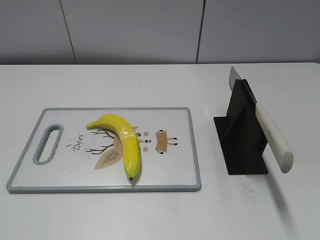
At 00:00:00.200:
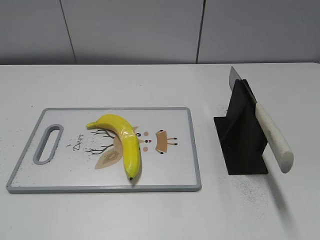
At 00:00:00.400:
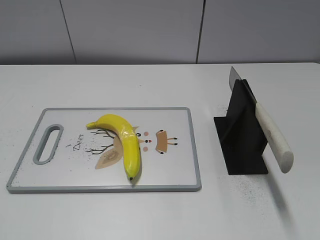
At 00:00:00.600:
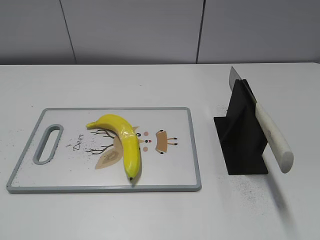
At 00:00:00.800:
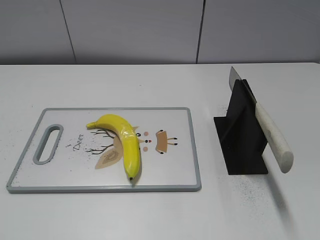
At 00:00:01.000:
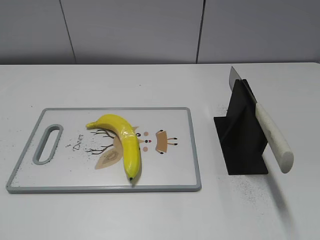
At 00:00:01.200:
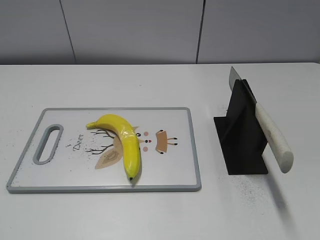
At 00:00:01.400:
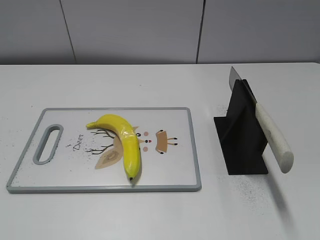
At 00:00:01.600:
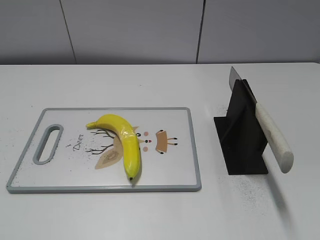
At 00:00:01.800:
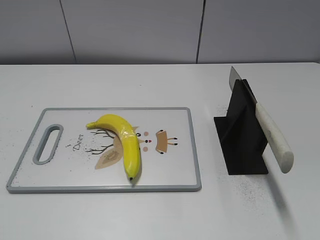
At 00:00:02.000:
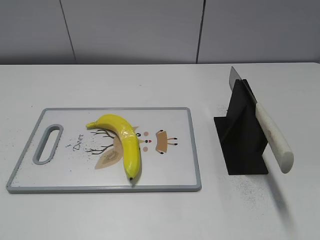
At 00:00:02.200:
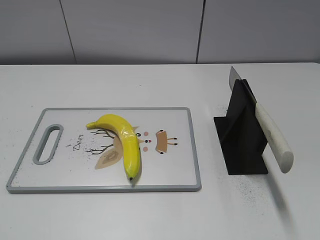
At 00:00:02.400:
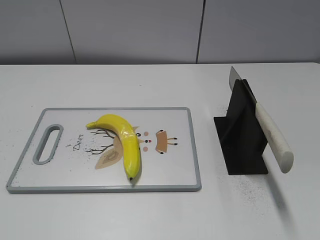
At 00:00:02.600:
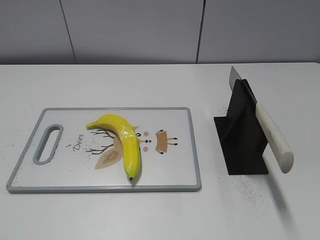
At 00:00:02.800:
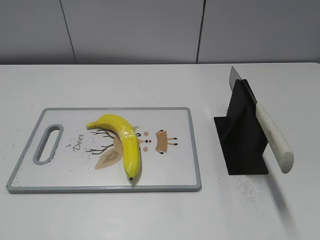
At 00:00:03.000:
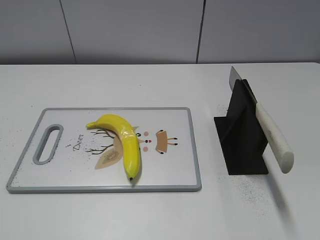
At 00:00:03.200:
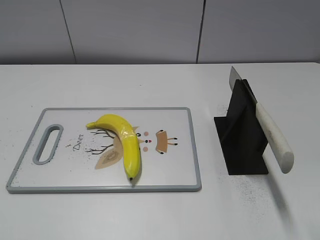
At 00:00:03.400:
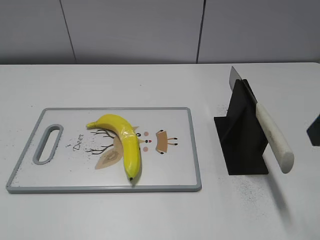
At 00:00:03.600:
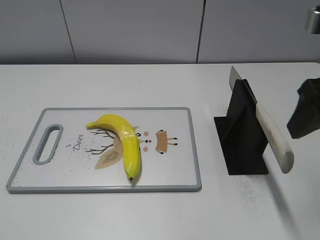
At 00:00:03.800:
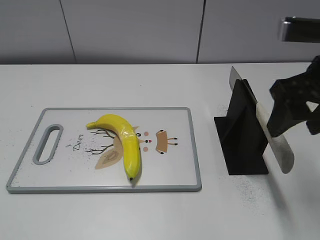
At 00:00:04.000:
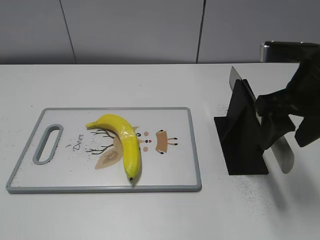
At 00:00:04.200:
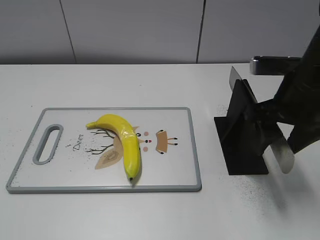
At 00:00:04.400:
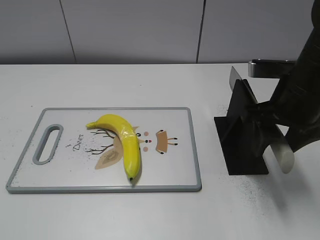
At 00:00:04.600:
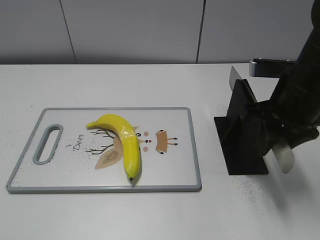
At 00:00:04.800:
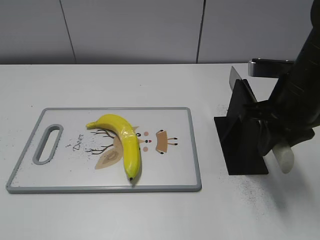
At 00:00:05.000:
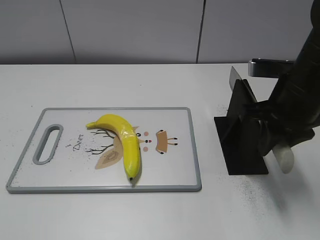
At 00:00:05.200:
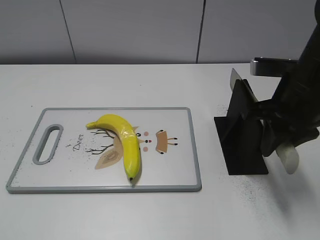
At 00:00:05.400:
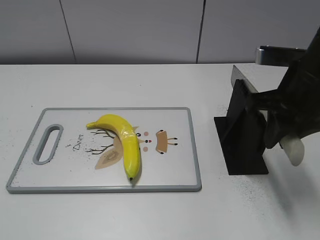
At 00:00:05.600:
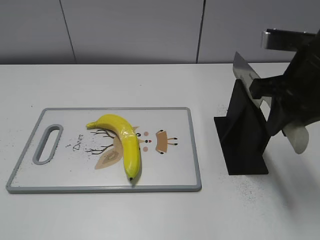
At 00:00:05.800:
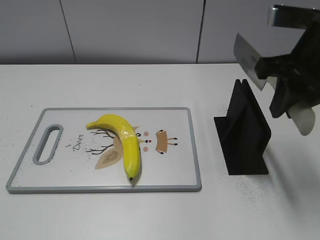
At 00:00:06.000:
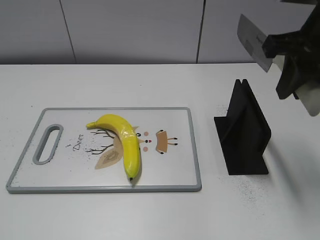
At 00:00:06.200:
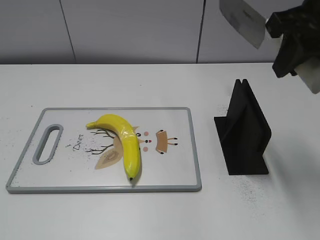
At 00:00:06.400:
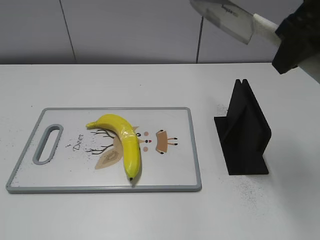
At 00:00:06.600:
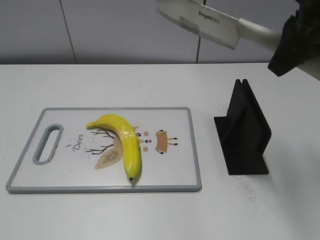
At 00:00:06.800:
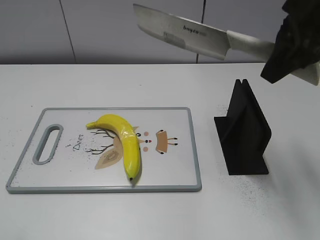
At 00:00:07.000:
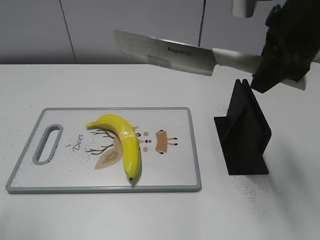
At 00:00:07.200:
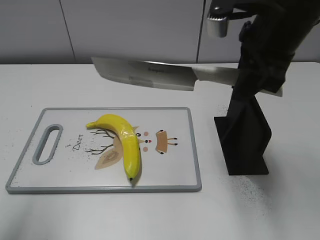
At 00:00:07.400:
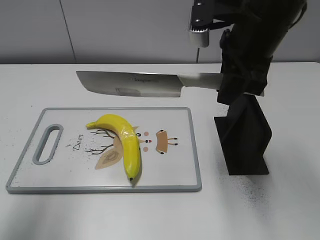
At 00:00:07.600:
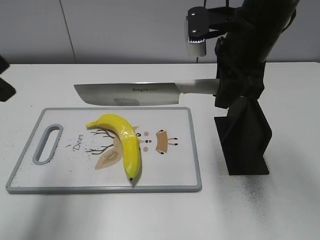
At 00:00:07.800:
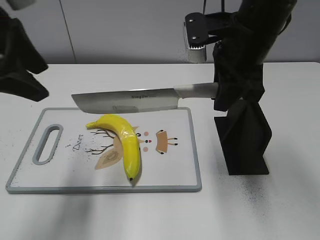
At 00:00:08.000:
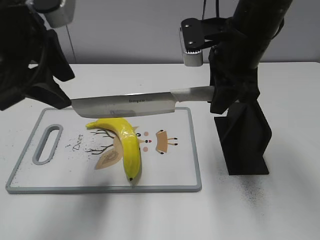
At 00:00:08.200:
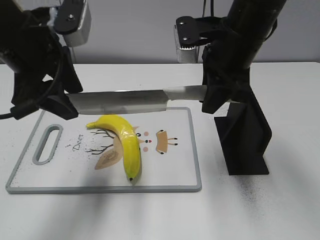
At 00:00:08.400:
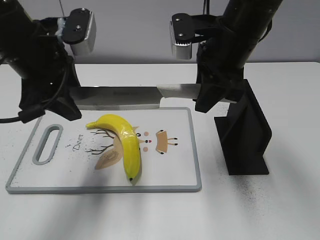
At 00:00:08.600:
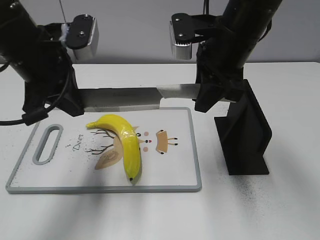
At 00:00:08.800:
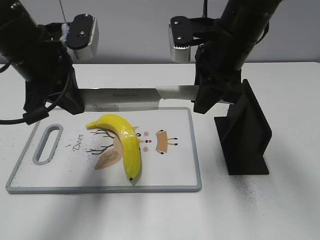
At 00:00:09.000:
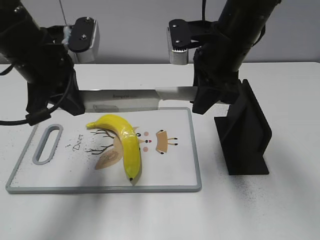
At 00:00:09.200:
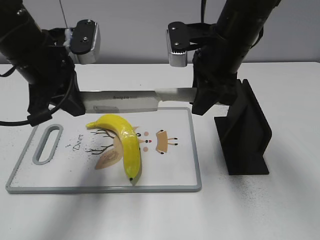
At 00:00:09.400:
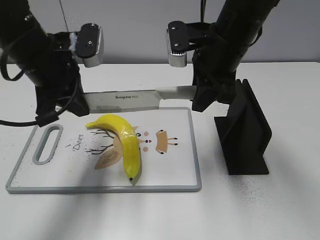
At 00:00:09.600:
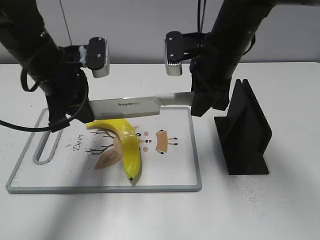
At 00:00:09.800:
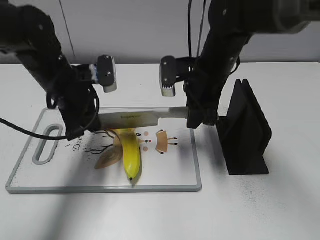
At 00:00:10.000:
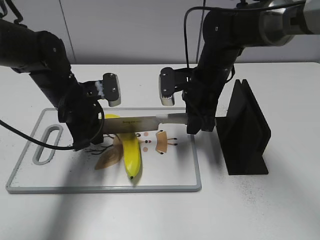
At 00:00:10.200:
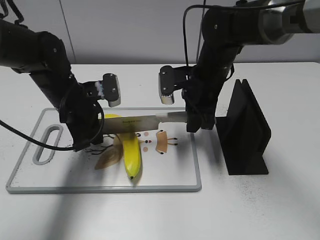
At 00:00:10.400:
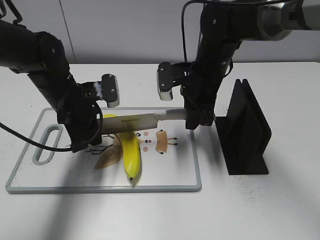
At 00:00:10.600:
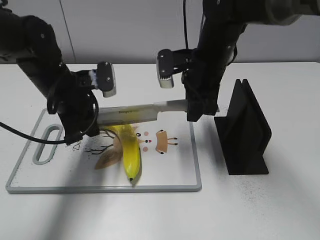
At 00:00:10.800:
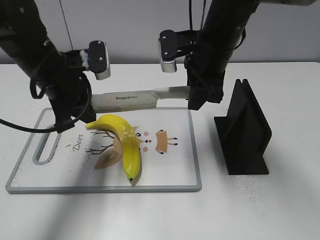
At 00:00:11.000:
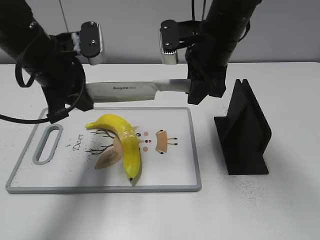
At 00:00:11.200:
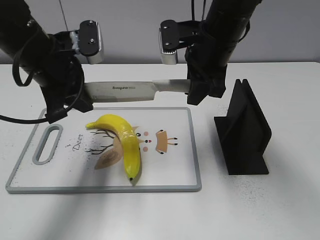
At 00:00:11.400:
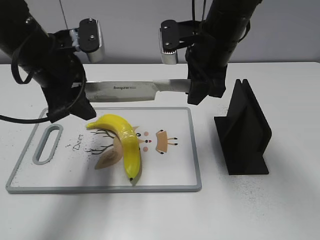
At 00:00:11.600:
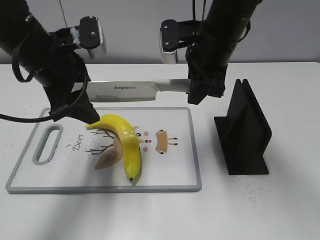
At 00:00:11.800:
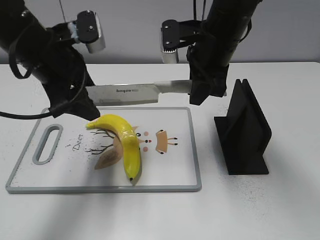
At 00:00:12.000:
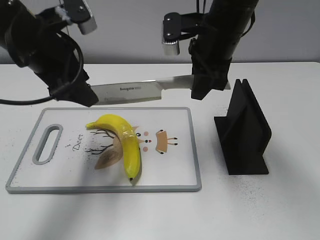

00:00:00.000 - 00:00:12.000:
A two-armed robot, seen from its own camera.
Task of the whole recording: cut plastic banana.
Step, 00:00:00.000 - 00:00:05.600: Grab the knife handle with your right hand.
Step, 00:00:06.000 - 00:00:10.800: Lift the knife with your right hand.
00:00:03.000 - 00:00:04.400: The right gripper heads forward, downward and to the left, covering some 20 cm.
00:00:04.400 - 00:00:06.000: The right gripper travels upward by roughly 10 cm, and closes up.
00:00:06.000 - 00:00:07.600: The right gripper is displaced to the left by roughly 5 cm. Meanwhile the left gripper is displaced forward by approximately 25 cm.
00:00:07.600 - 00:00:09.000: The left gripper goes roughly 15 cm downward, to the right and forward, and closes its fingers.
00:00:09.000 - 00:00:10.400: Both grippers move downward, roughly 10 cm.
00:00:10.400 - 00:00:12.000: The grippers both shift upward by some 10 cm. The left gripper opens its fingers.

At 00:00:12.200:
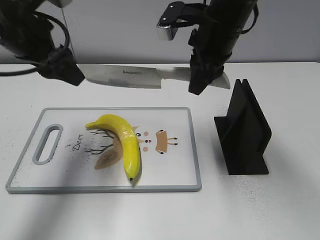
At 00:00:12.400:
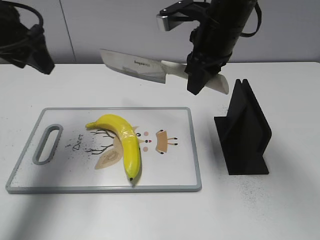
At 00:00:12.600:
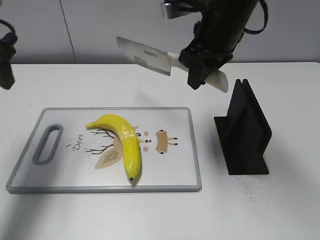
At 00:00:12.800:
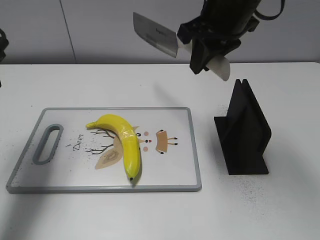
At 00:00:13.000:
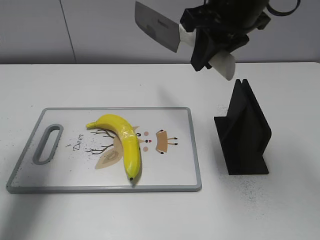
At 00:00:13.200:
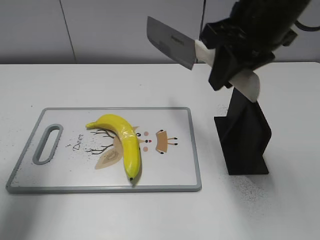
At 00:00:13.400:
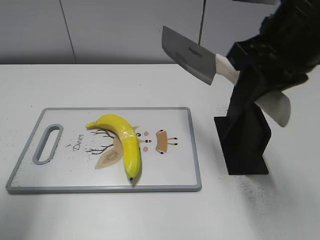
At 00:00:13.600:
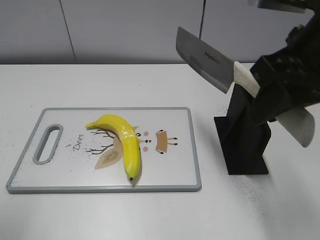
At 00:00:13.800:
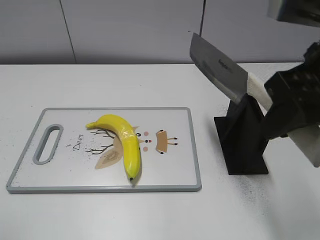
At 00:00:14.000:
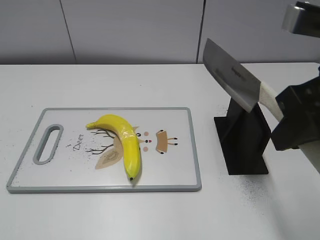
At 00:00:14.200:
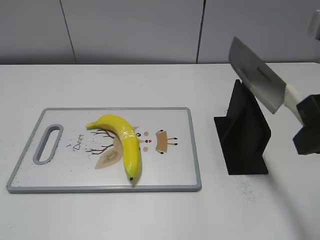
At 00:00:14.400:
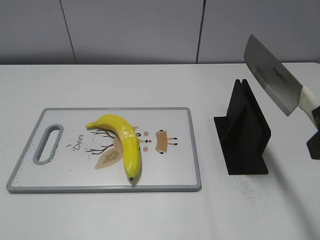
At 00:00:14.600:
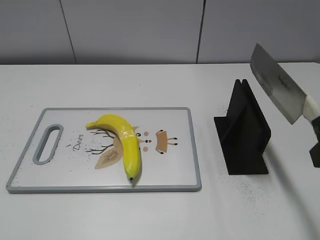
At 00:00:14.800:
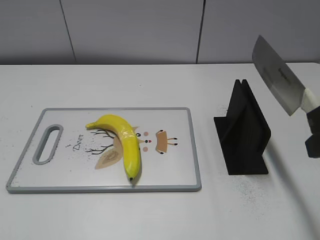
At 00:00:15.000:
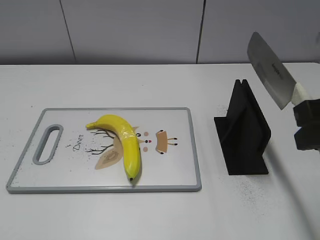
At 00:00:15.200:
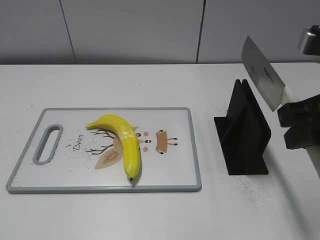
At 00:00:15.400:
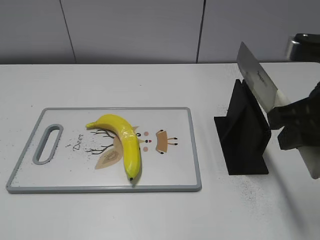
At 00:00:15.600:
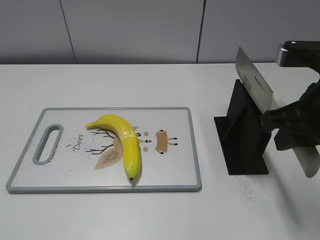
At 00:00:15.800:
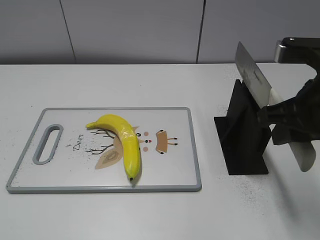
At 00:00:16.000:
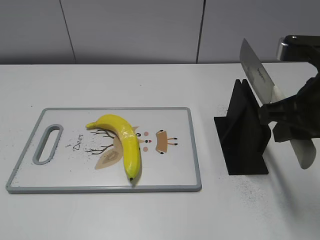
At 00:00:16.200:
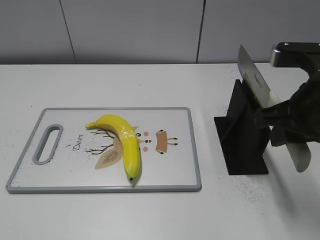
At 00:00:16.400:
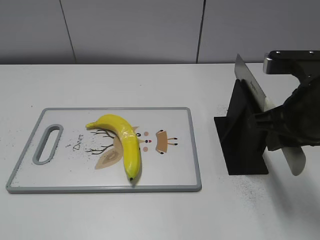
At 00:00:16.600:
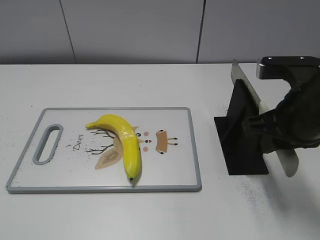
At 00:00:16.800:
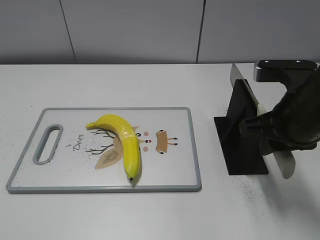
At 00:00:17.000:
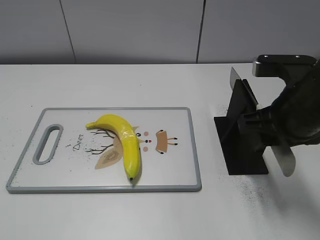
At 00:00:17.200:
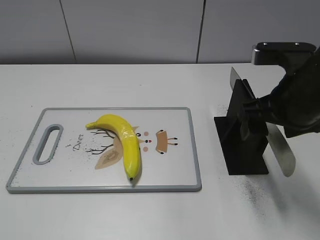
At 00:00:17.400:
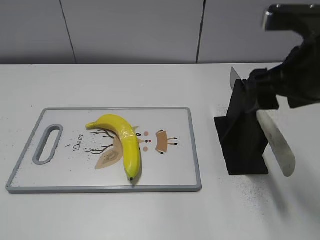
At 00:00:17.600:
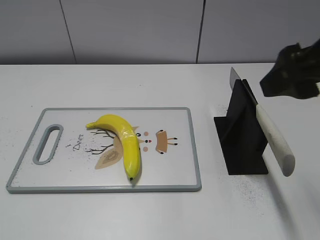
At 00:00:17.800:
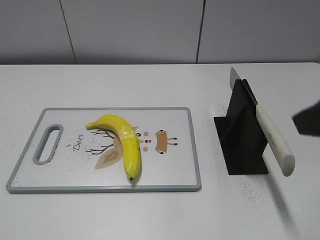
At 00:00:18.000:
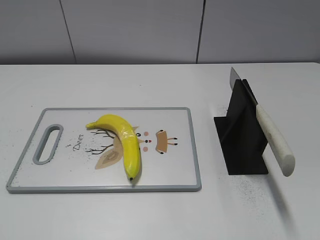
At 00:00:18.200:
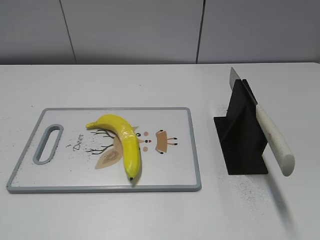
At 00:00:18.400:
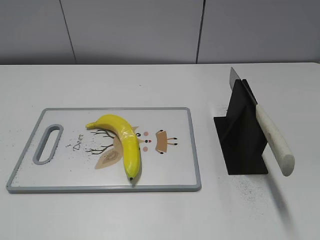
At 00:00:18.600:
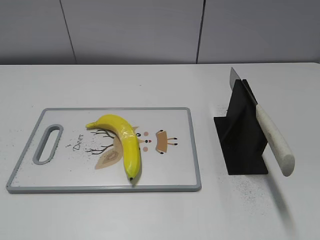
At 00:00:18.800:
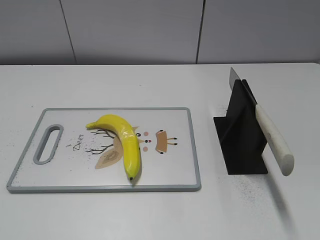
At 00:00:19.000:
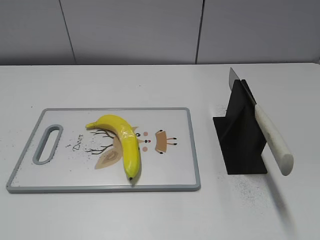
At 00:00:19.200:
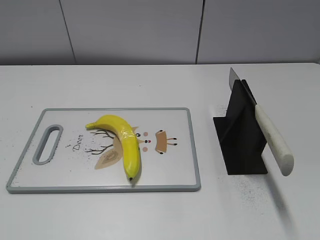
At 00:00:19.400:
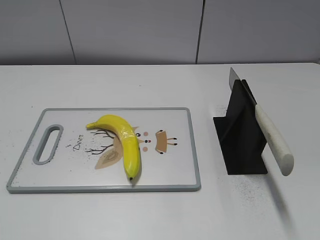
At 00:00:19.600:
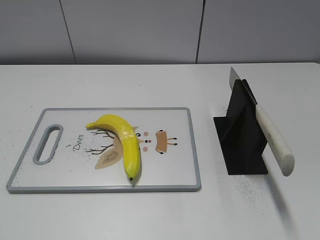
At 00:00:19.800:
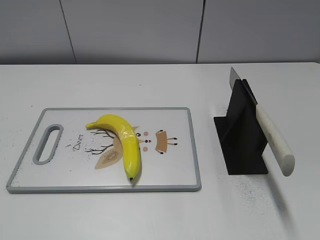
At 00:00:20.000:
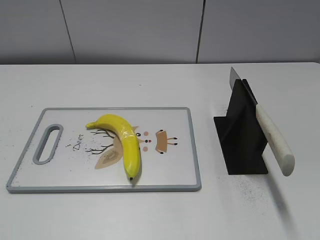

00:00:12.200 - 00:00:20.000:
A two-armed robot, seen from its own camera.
Task of the whole recording: cut plastic banana.
Step, 00:00:12.800 - 00:00:13.800: Lift the knife with your right hand.
Step, 00:00:14.200 - 00:00:20.000: Place the knife on the storage rack with your right hand.
00:00:12.200 - 00:00:13.800: The right gripper goes approximately 20 cm backward and to the right, while the left gripper is displaced backward and to the left by some 25 cm.
00:00:13.800 - 00:00:15.400: The right gripper heads downward, covering about 5 cm; the left gripper is displaced backward and downward by about 10 cm.
00:00:15.400 - 00:00:16.800: The right gripper is displaced downward by about 5 cm.
00:00:16.800 - 00:00:18.400: The right gripper travels backward and to the right by some 20 cm, and opens.
